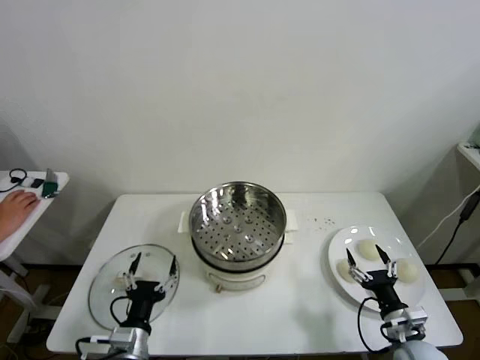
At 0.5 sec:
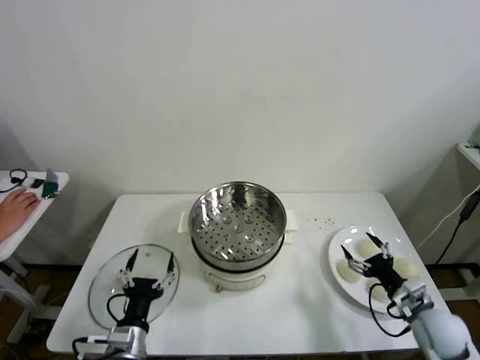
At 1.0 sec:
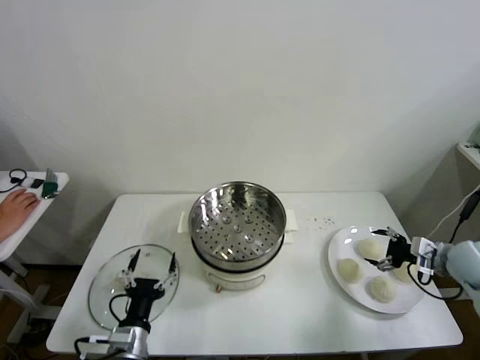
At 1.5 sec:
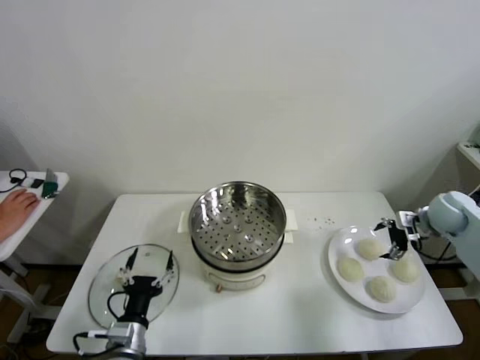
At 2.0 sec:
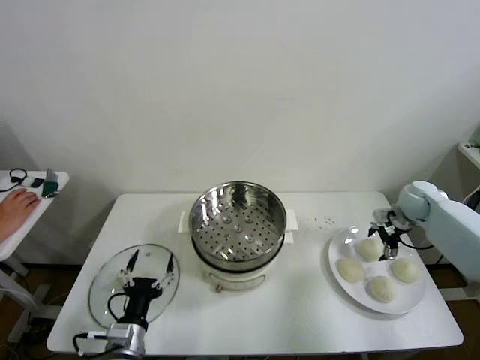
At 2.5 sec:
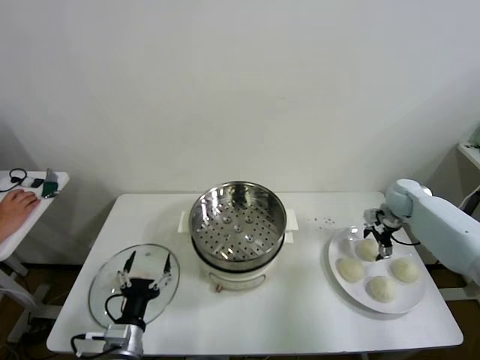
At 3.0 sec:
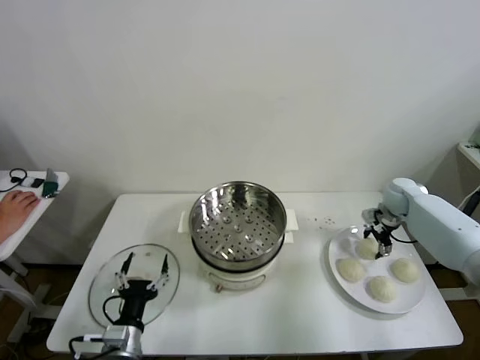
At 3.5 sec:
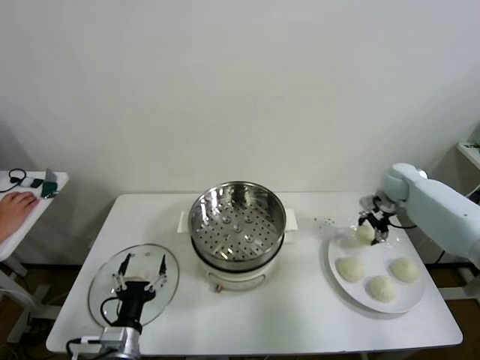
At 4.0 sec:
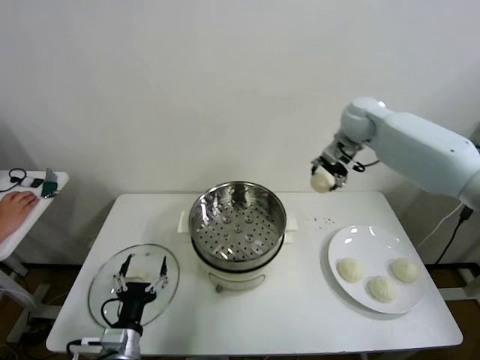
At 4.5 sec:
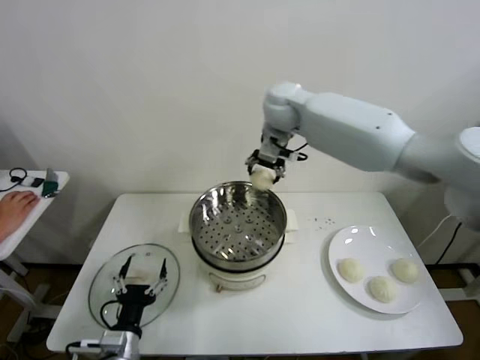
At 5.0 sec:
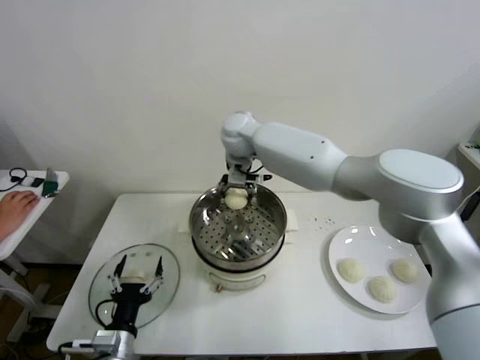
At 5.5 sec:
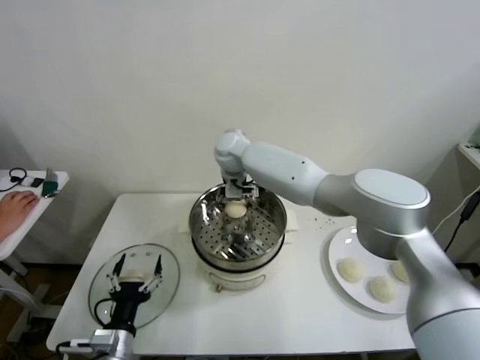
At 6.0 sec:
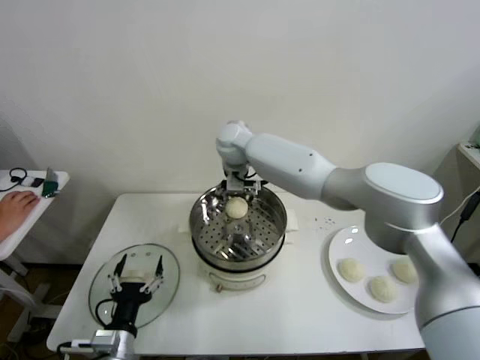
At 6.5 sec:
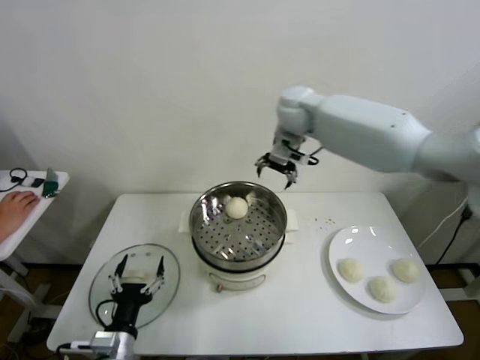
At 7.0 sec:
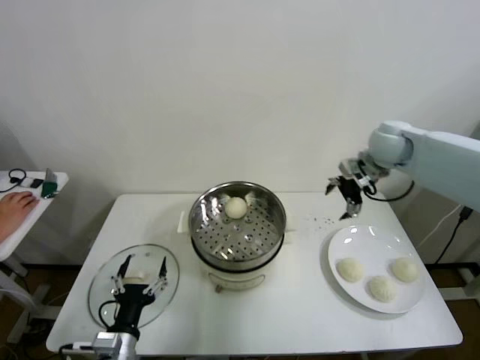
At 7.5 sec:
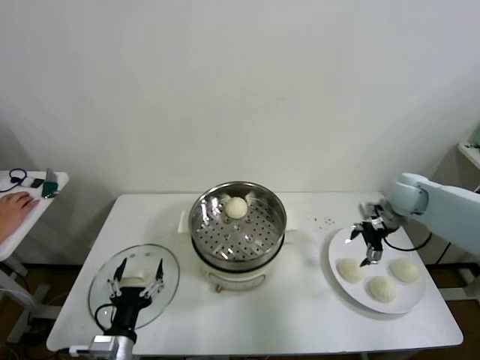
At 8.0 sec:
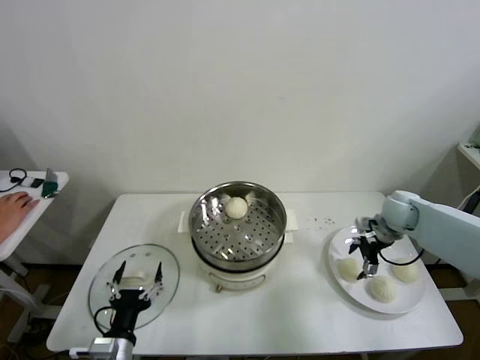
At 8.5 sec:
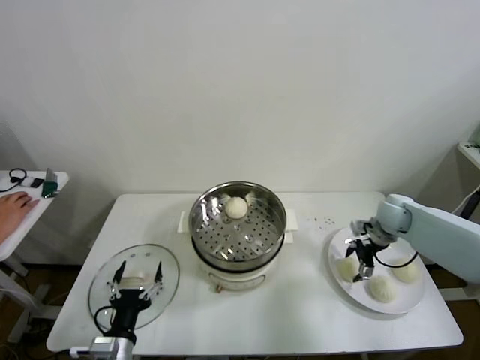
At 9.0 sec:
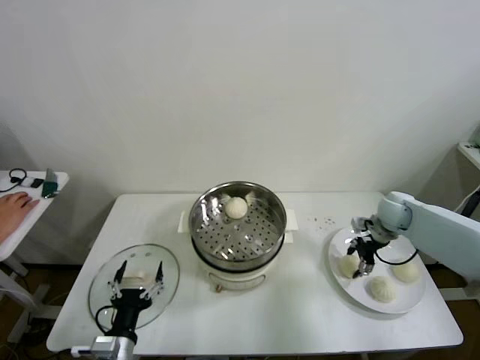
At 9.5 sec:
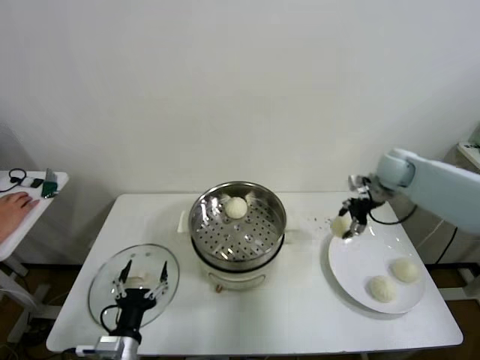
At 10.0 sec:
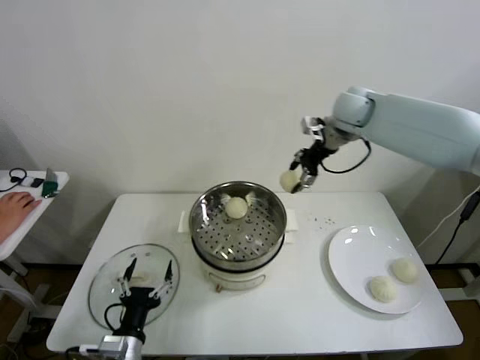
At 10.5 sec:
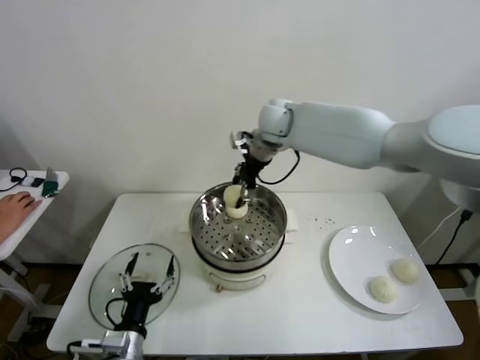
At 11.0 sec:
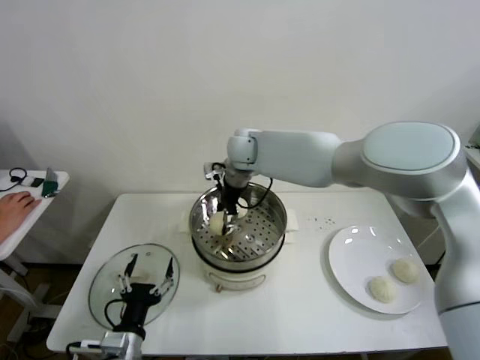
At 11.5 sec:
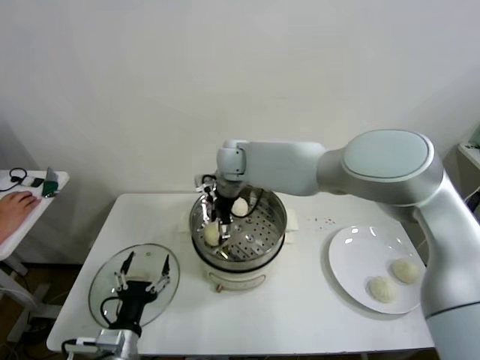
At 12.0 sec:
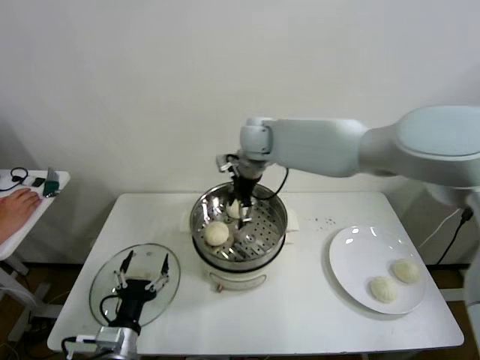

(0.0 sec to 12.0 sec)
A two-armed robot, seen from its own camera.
Step, 0.0 sec - 3.0 sec: Grasp the baozi in the plate with right gripper.
Step, 3.5 sec - 5.5 sec: Place the baozi on the steamer with right gripper.
Step, 6.0 sec - 8.5 sec: Grasp the baozi in the plate with right gripper.
Step, 9.0 sec - 11.5 sec: Place the baozi on the steamer with right gripper.
2.0 sec - 4.0 sec: The right gripper goes approximately 30 cm upward and to the left, and closes its fingers.
4.0 sec - 6.0 sec: The right gripper heads to the left, covering roughly 25 cm, and opens.
6.0 sec - 8.0 sec: The right gripper moves to the right and downward, roughly 40 cm.
8.0 sec - 10.0 sec: The right gripper heads upward, to the left and forward, covering roughly 30 cm, and closes up.
10.0 sec - 12.0 sec: The right gripper travels to the left by about 15 cm, and opens its fingers.

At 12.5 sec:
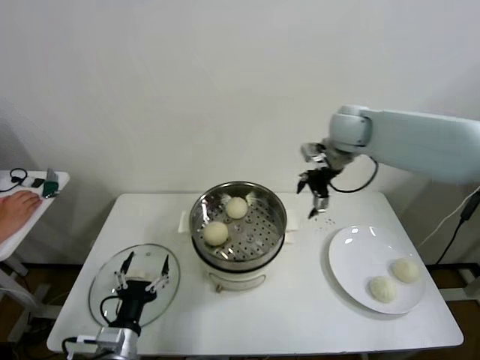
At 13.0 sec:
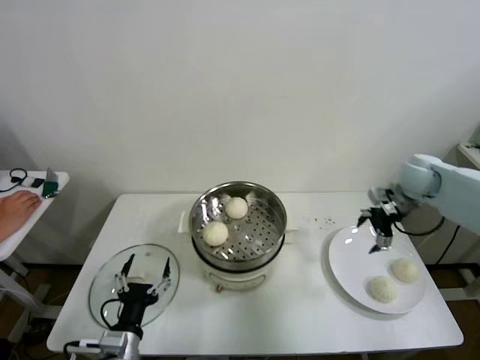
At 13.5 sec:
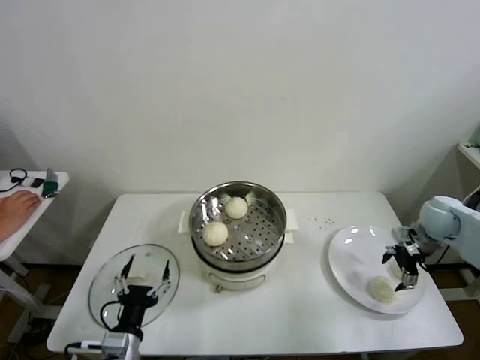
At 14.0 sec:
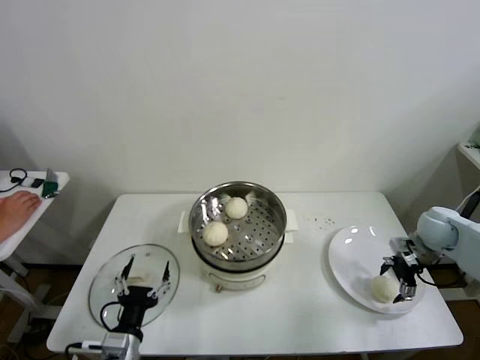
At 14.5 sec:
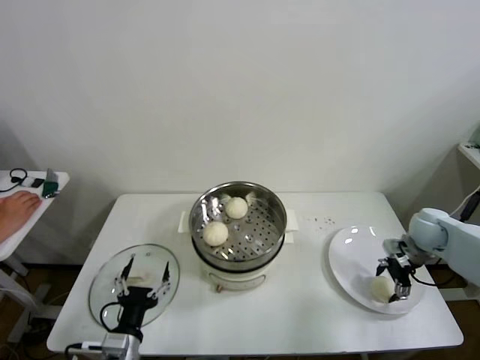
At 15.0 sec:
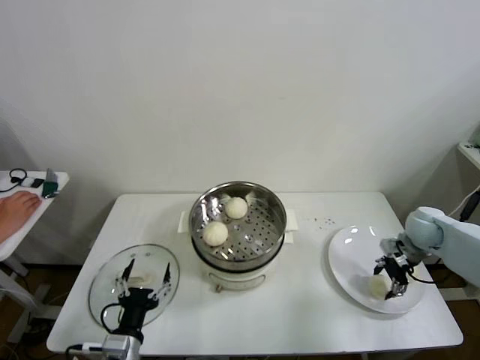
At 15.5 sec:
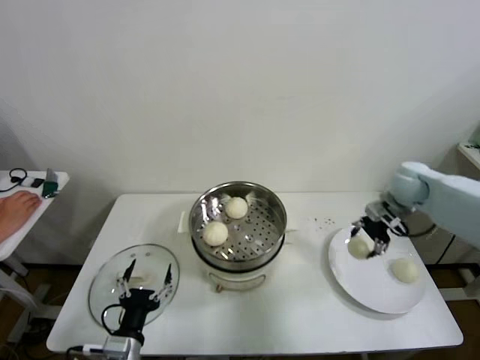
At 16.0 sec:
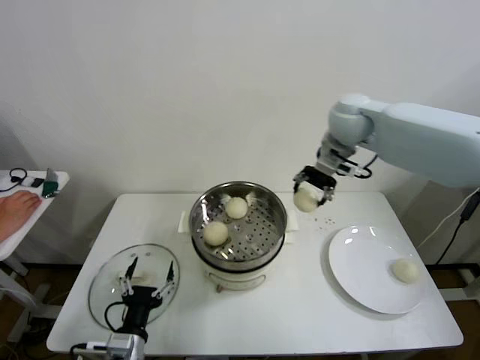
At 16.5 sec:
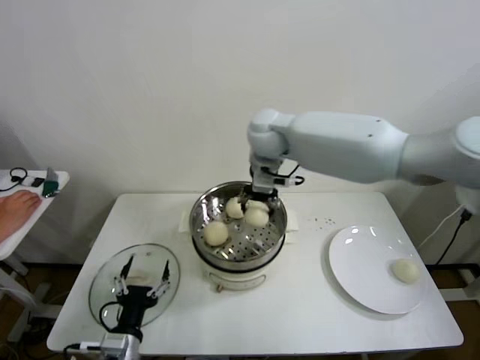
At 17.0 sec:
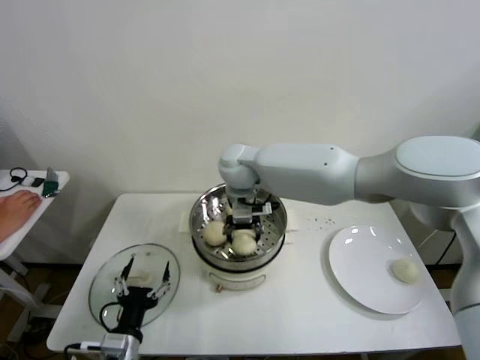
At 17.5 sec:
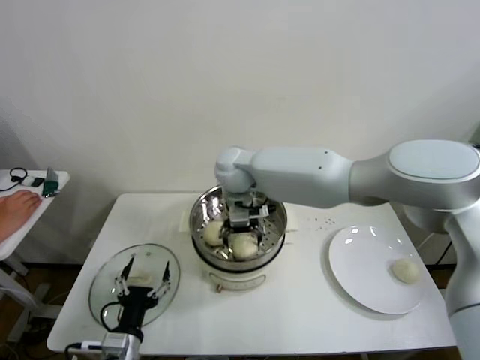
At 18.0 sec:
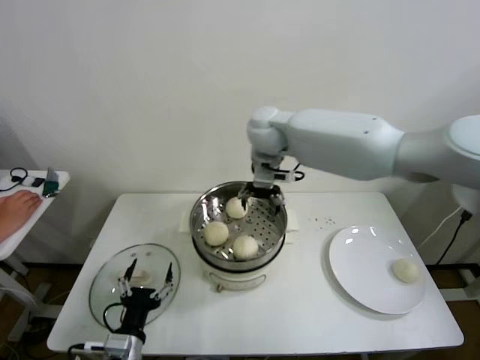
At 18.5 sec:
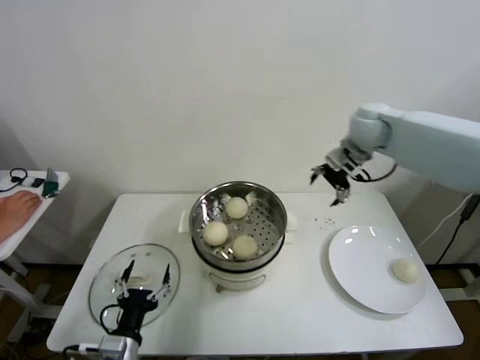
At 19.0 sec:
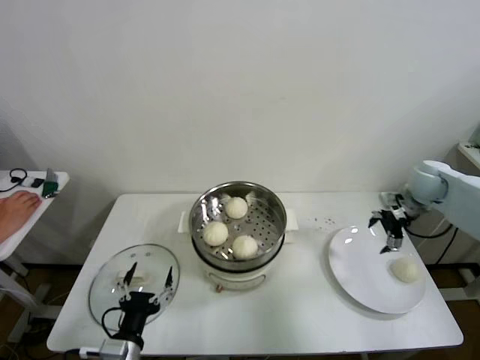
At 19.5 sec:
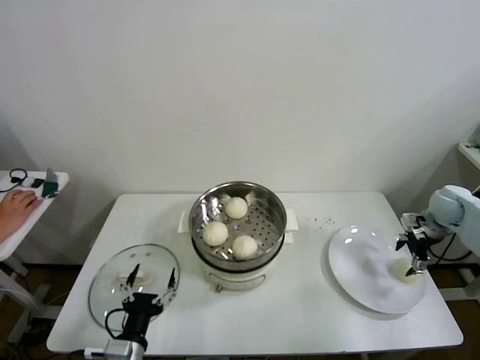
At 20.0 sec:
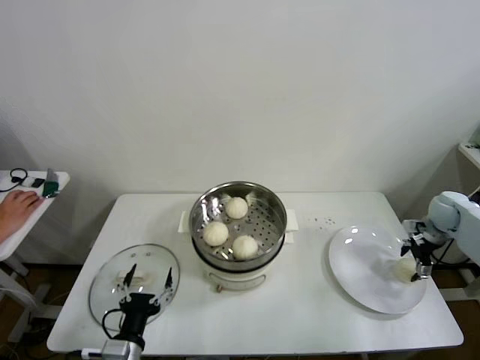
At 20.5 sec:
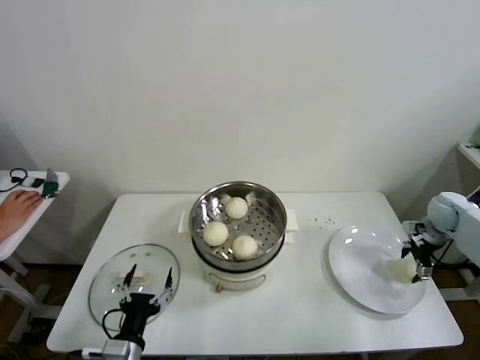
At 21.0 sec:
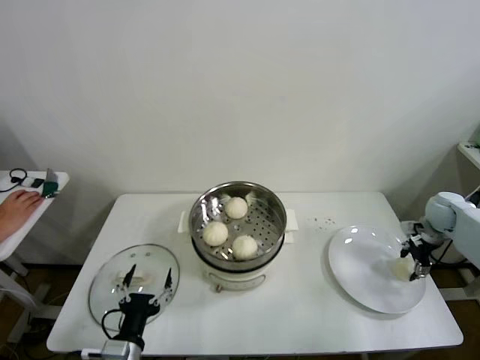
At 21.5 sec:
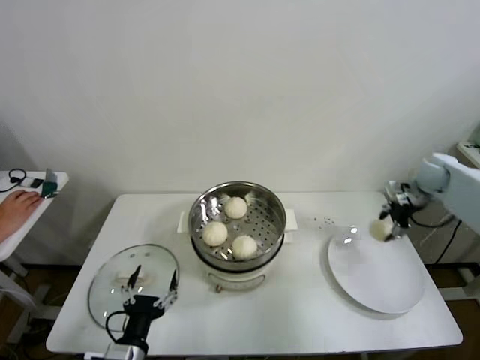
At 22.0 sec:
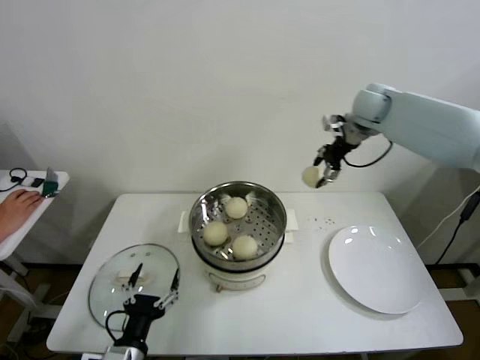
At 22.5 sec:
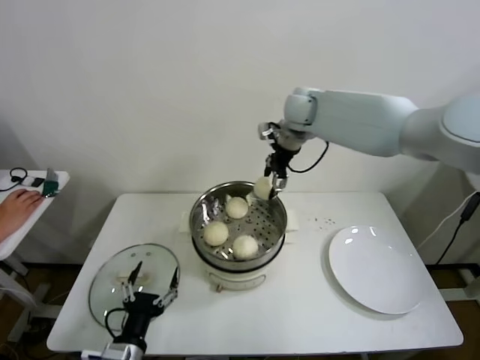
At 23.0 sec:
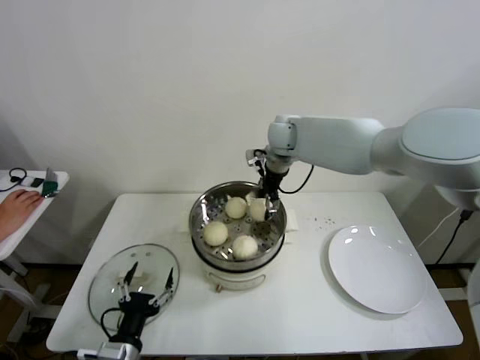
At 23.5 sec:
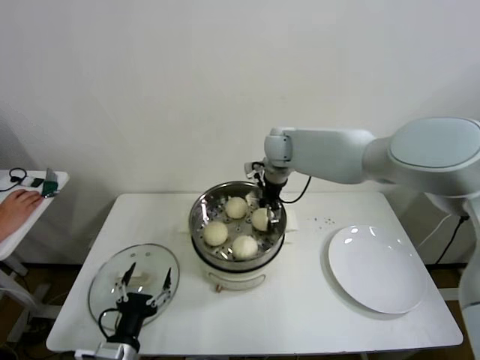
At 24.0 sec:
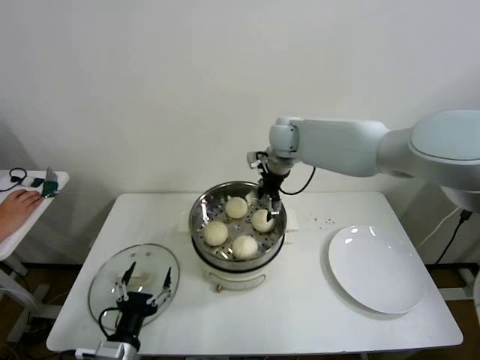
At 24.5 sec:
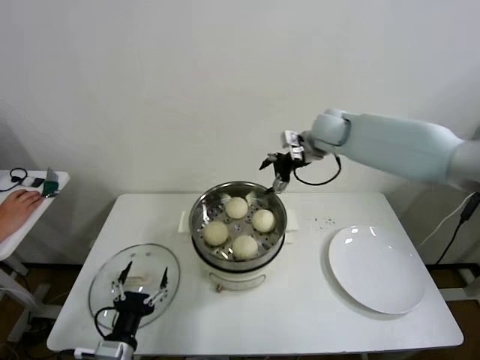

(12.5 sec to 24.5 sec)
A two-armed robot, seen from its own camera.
Step, 12.5 sec - 15.0 sec: Grasp the baozi in the plate with right gripper.
Step, 15.5 sec - 17.0 sec: Place the baozi on the steamer with right gripper.
Step, 17.5 sec - 20.5 sec: Grasp the baozi in the plate with right gripper.
Step, 21.5 sec - 23.5 sec: Place the baozi on the steamer with right gripper.
12.5 sec - 14.5 sec: The right gripper is displaced downward, to the right and backward by roughly 30 cm, and closes its fingers.
14.5 sec - 16.5 sec: The right gripper shifts roughly 50 cm to the left and upward, and closes up.
16.5 sec - 18.5 sec: The right gripper goes approximately 25 cm to the right, and opens its fingers.
18.5 sec - 20.5 sec: The right gripper heads to the right and downward, covering roughly 30 cm.
20.5 sec - 22.5 sec: The right gripper travels to the left and upward by about 50 cm, and closes.
22.5 sec - 24.5 sec: The right gripper goes approximately 5 cm to the right, and opens its fingers.

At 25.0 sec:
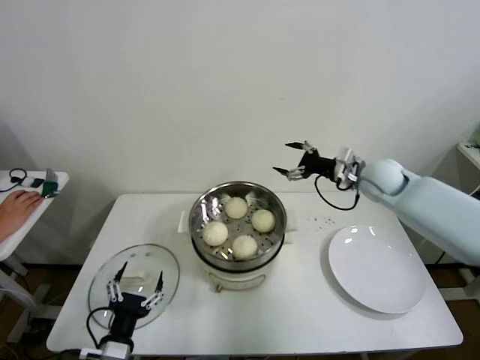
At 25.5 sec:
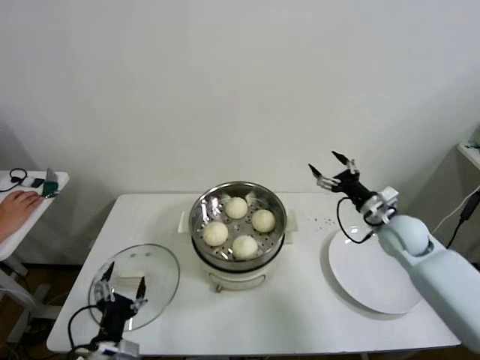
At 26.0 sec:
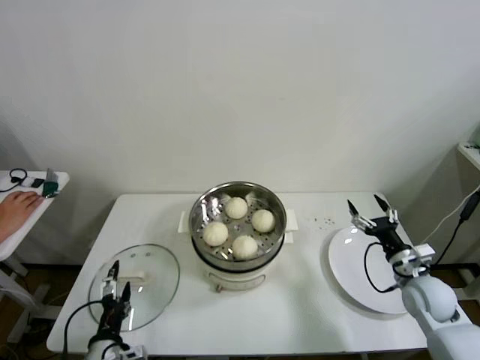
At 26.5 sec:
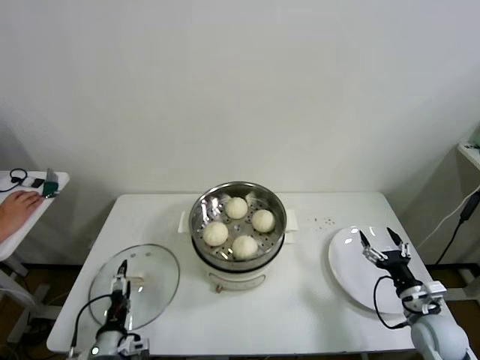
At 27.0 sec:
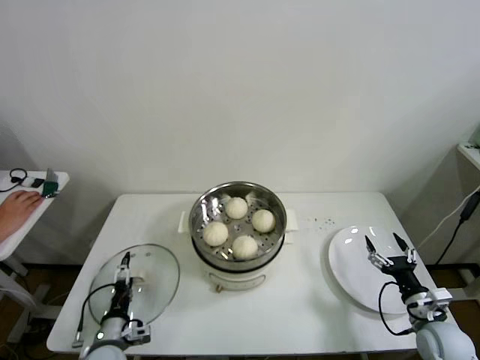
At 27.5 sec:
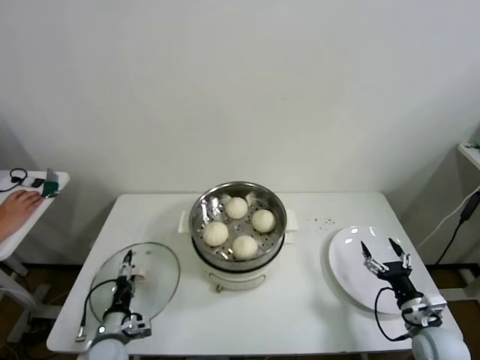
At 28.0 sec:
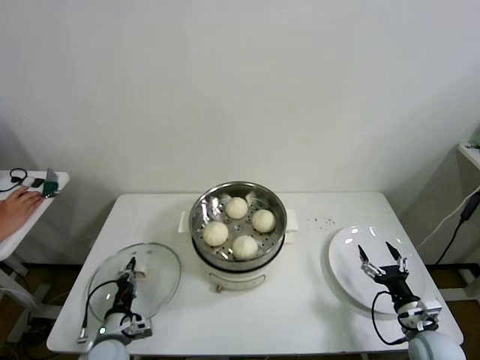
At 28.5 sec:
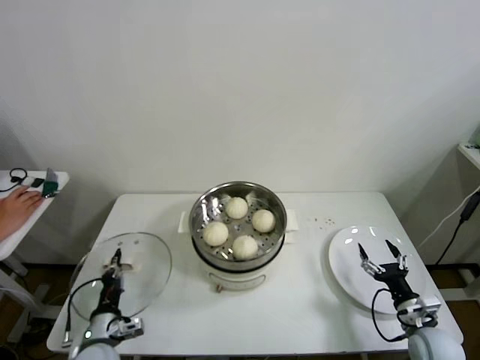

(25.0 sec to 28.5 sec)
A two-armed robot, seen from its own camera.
Step, 25.0 sec - 28.0 sec: Grasp the pot lid with left gripper.
25.0 sec - 27.0 sec: The left gripper is displaced downward and forward by about 10 cm, while the right gripper shifts approximately 35 cm backward and downward.
27.0 sec - 28.5 sec: The left gripper closes up.
